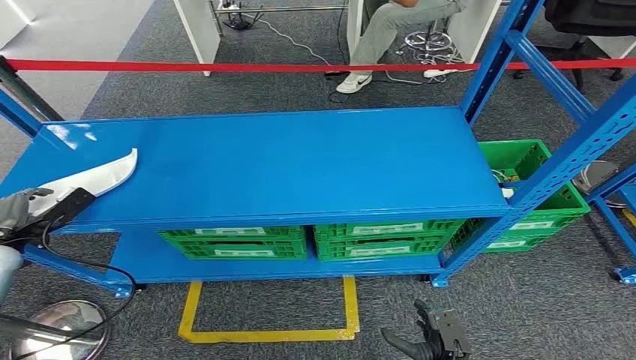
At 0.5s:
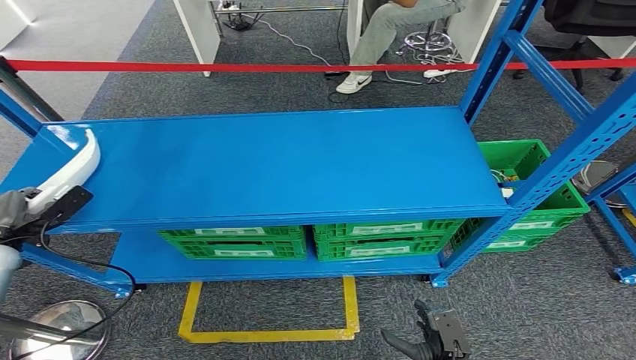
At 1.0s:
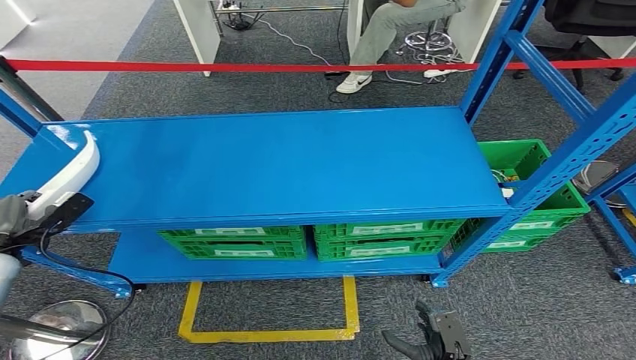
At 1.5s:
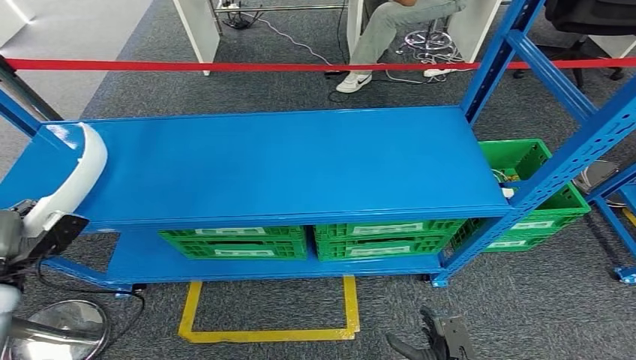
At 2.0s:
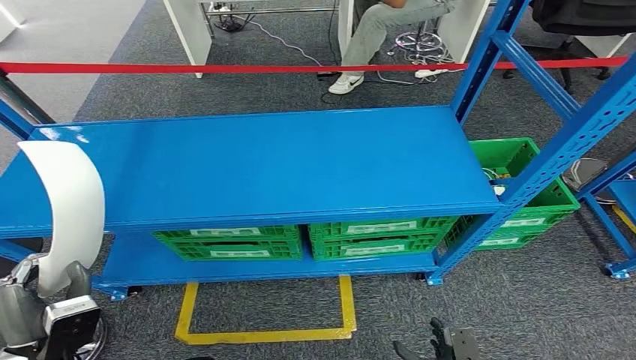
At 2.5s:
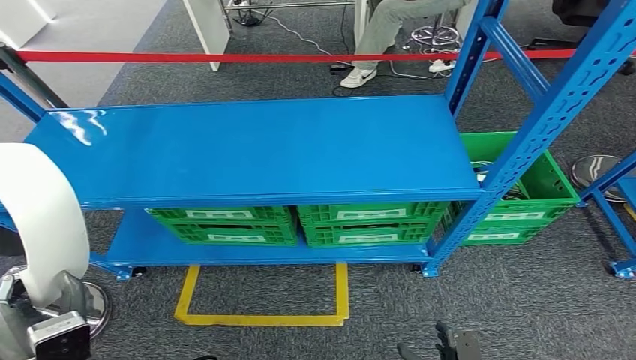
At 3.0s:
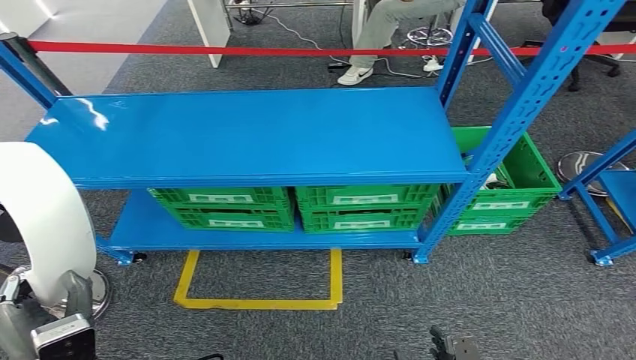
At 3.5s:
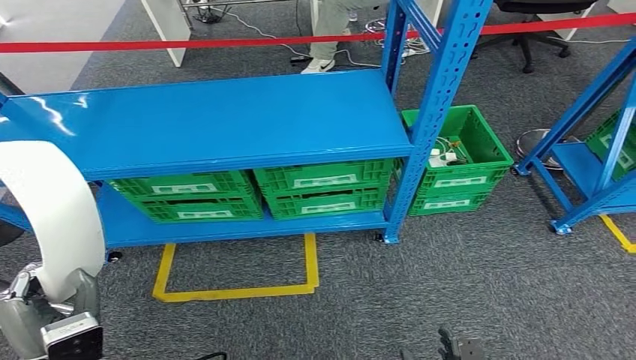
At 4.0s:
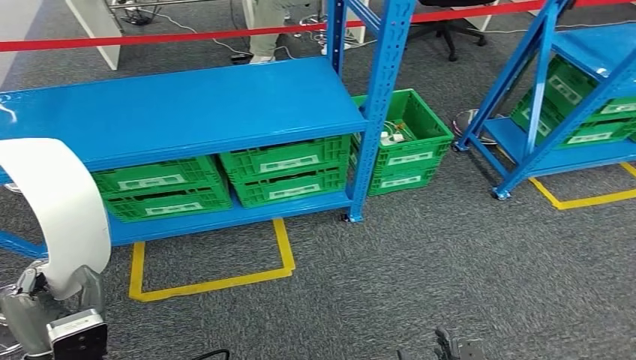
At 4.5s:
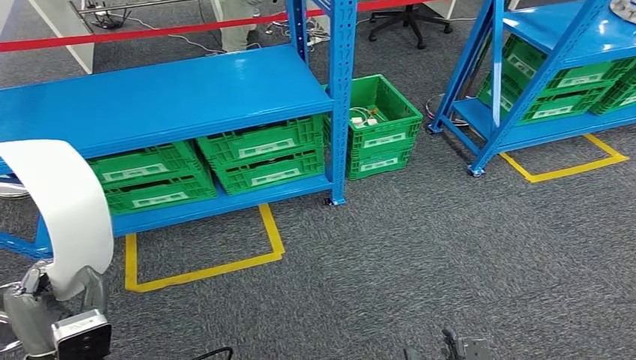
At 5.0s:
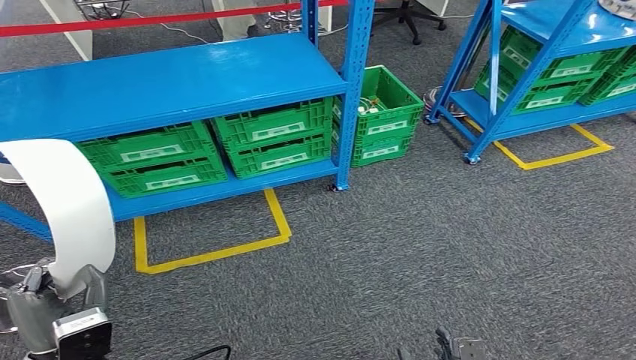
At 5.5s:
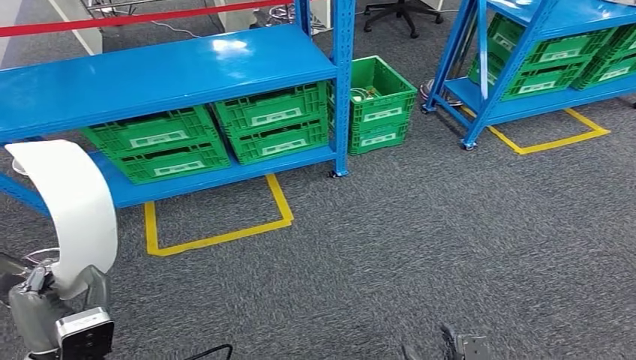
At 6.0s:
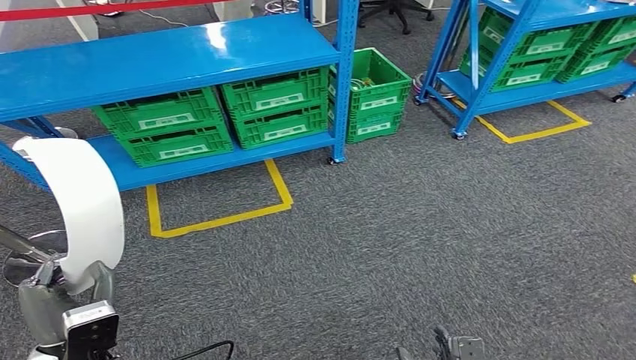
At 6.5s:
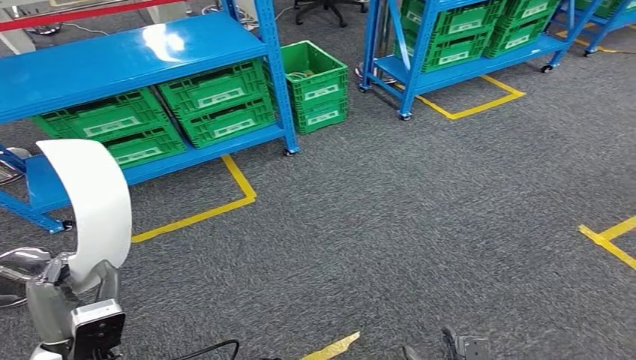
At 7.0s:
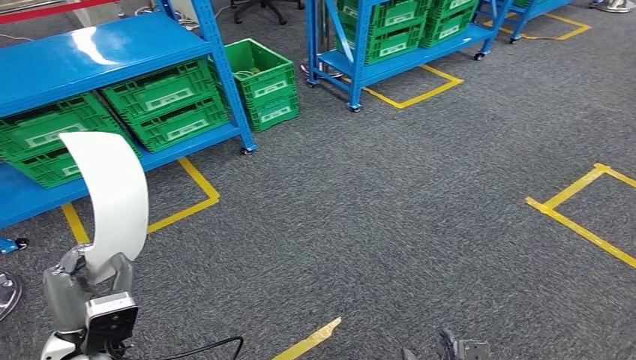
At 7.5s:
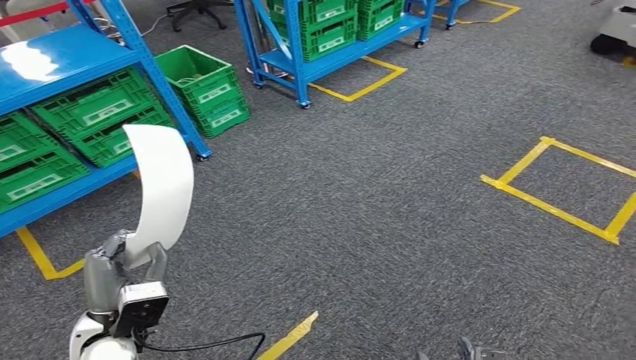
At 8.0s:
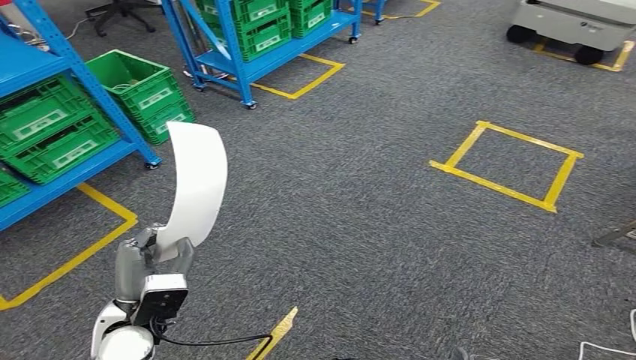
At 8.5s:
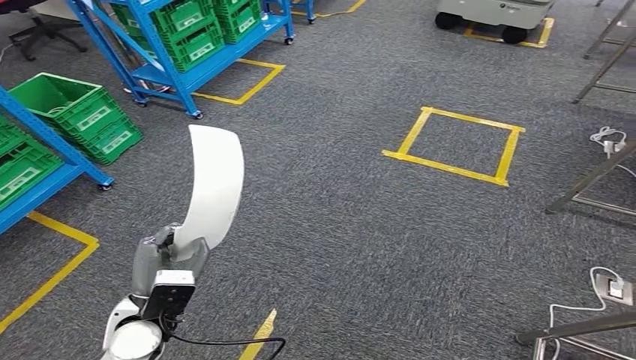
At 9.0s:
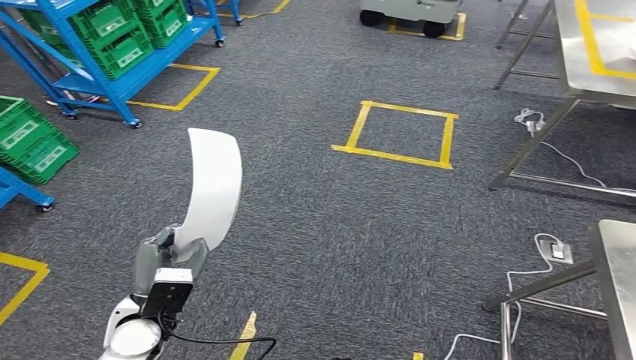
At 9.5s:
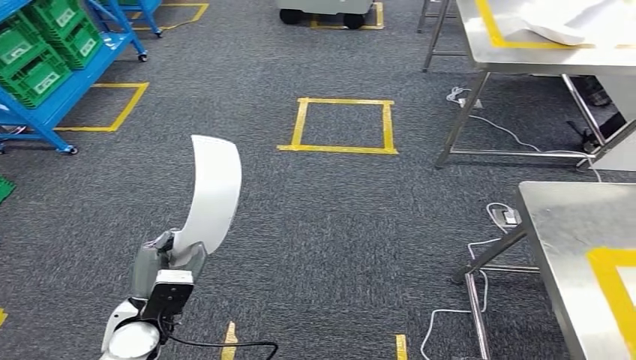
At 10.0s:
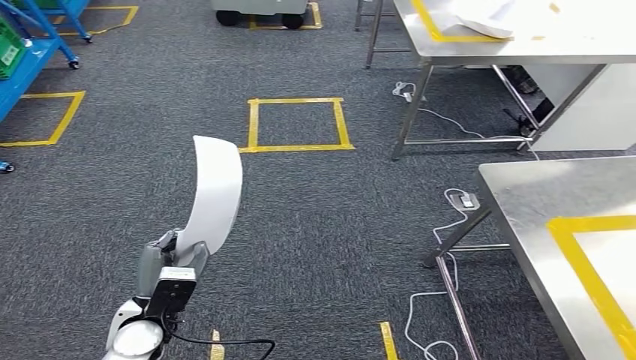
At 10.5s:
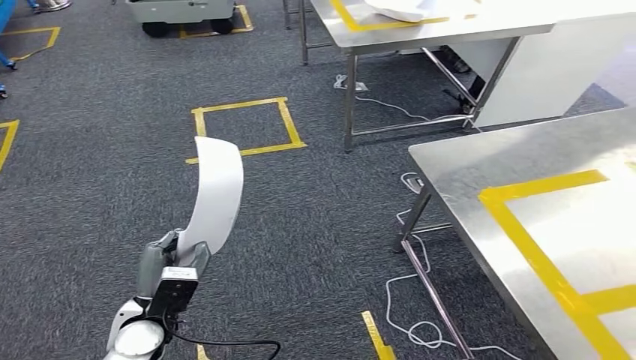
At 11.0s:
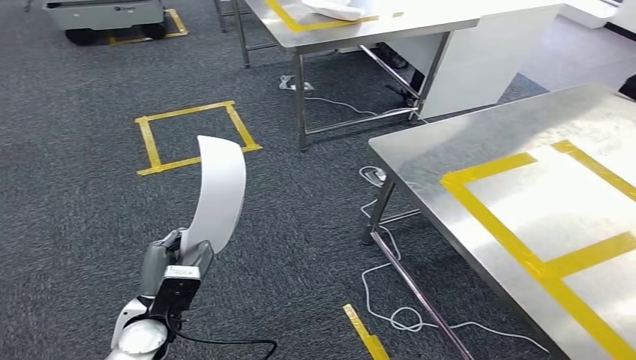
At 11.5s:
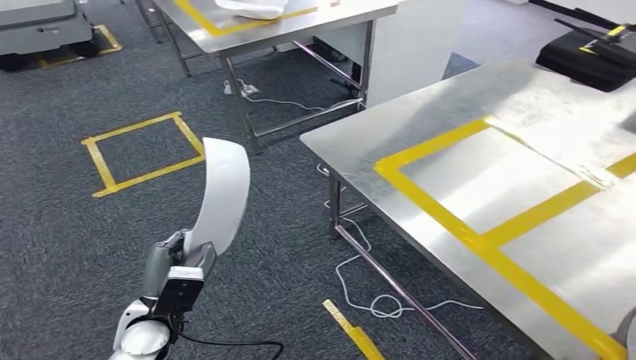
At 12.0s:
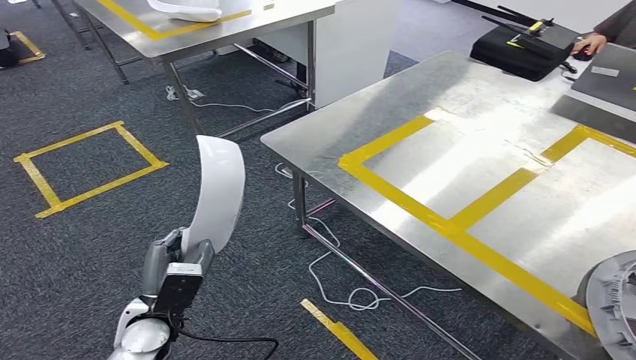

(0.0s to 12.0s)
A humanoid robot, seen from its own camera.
Step, 0.0s - 3.0s: Pick up the small parts from the shelf.

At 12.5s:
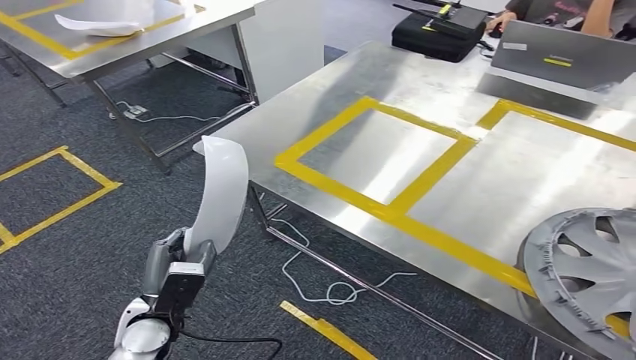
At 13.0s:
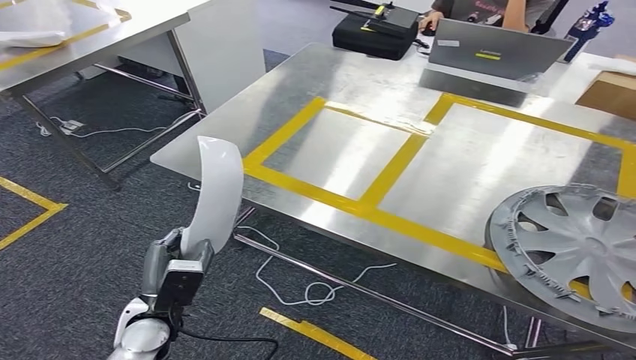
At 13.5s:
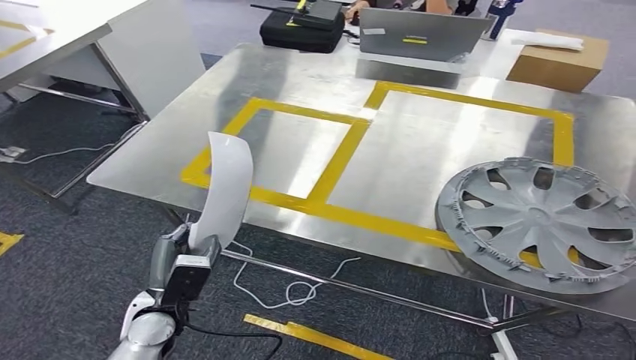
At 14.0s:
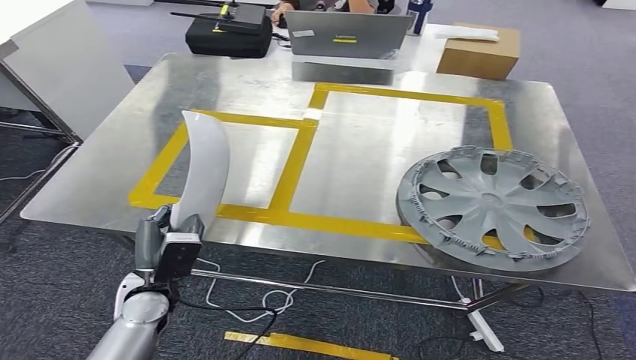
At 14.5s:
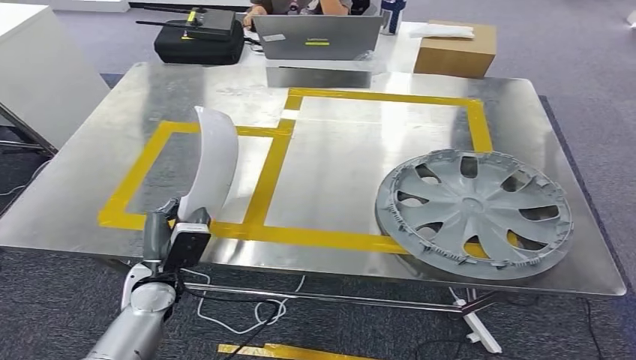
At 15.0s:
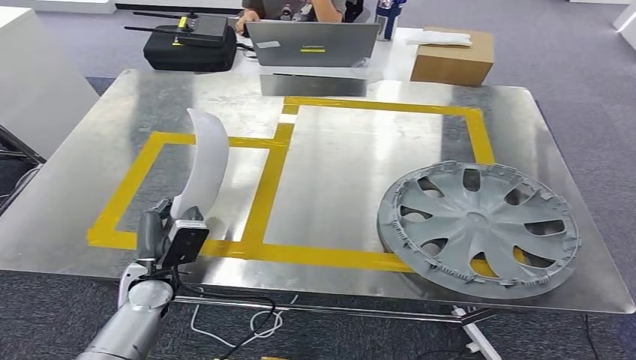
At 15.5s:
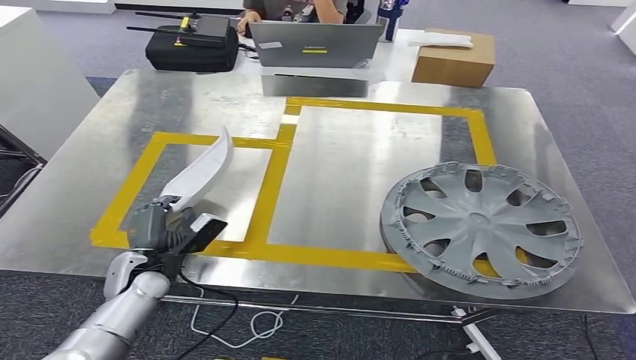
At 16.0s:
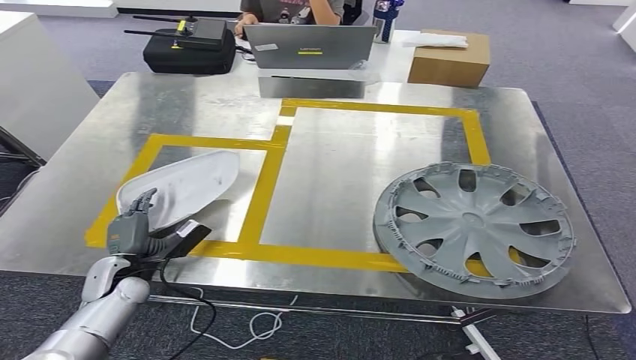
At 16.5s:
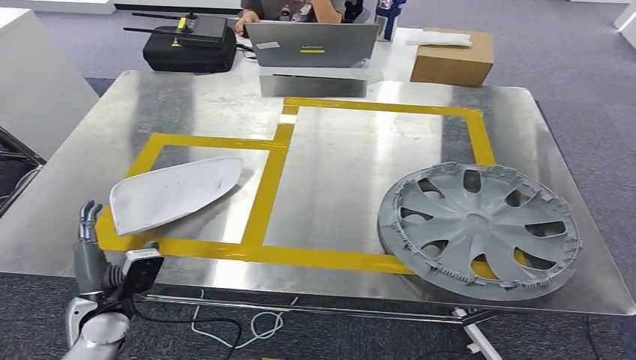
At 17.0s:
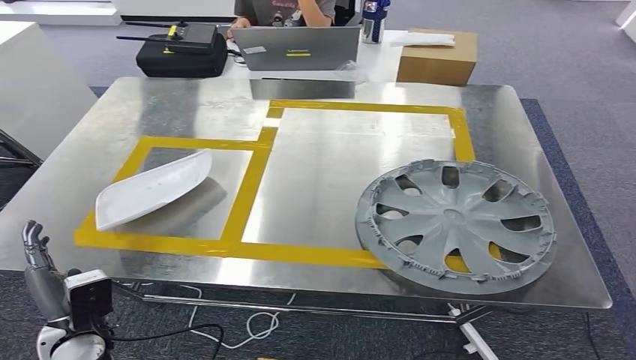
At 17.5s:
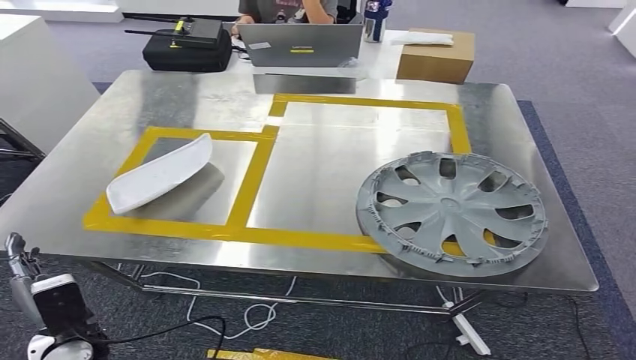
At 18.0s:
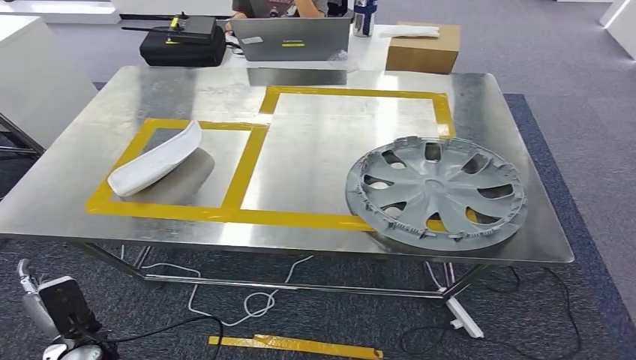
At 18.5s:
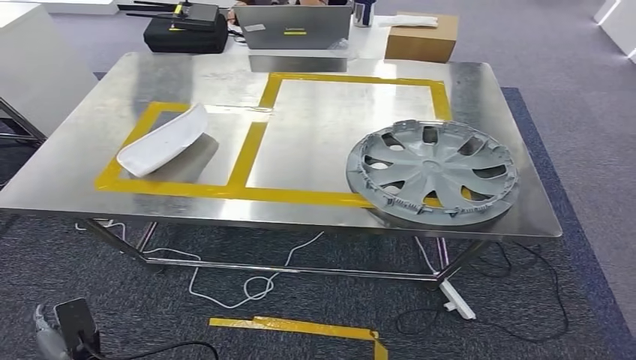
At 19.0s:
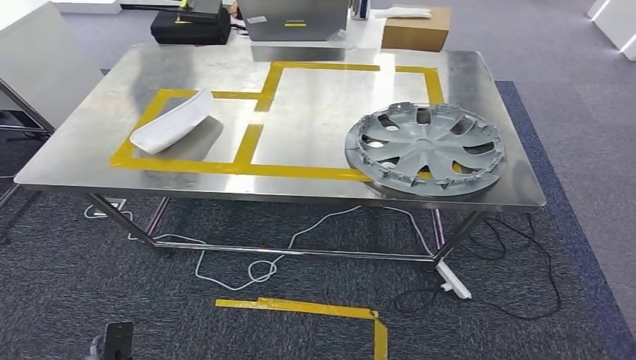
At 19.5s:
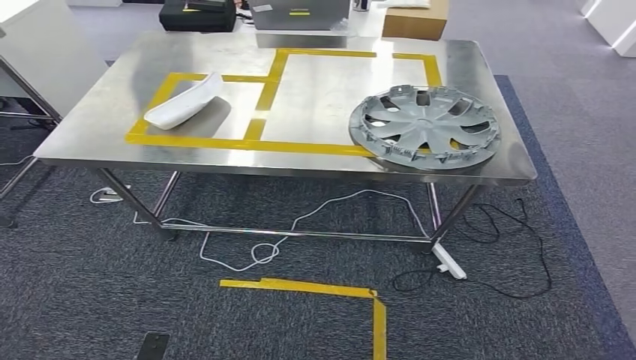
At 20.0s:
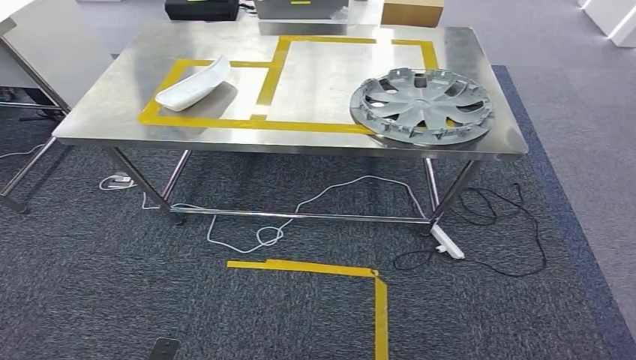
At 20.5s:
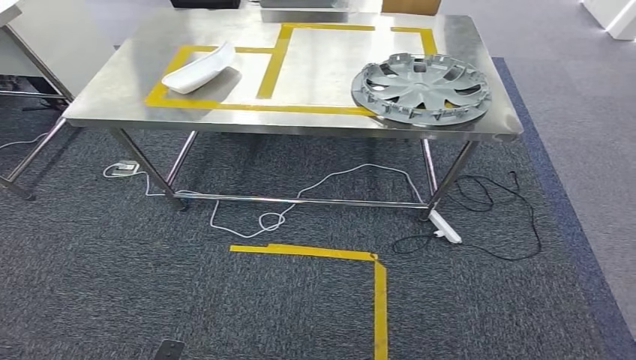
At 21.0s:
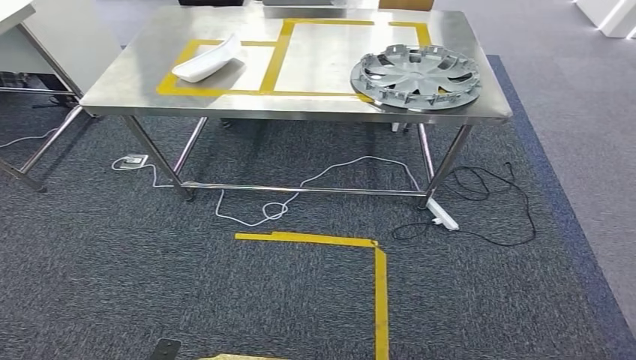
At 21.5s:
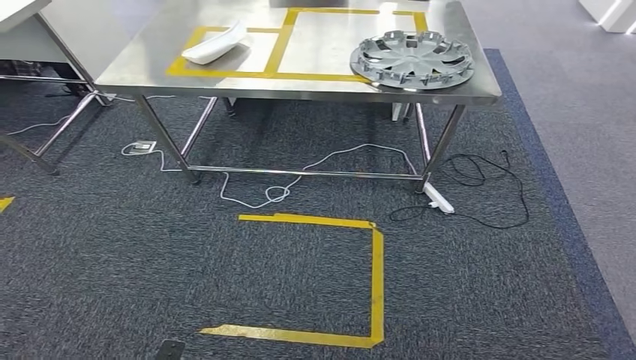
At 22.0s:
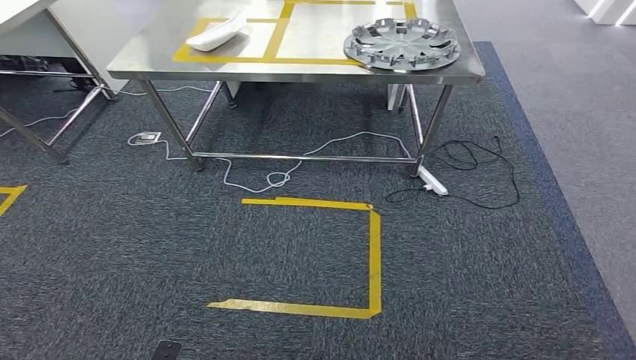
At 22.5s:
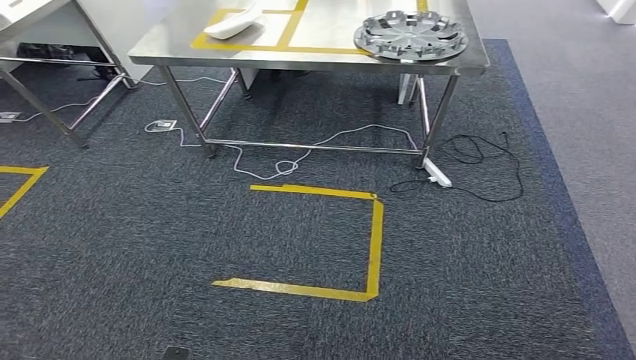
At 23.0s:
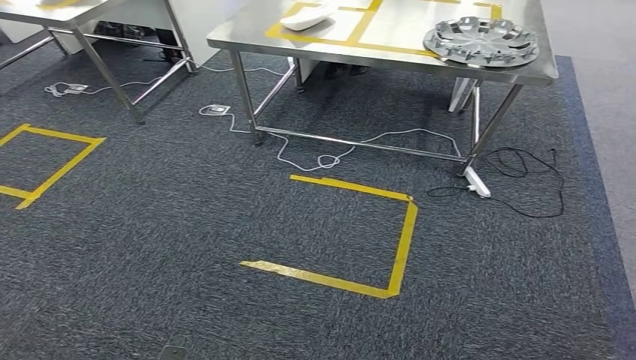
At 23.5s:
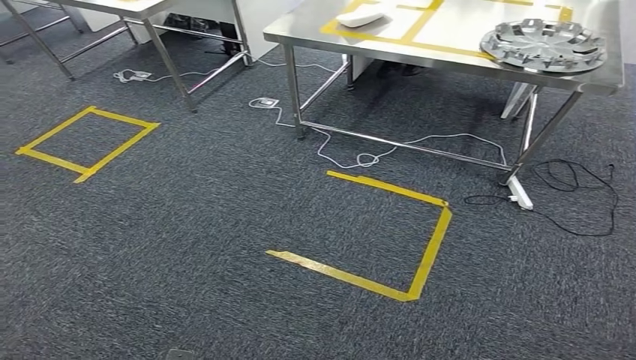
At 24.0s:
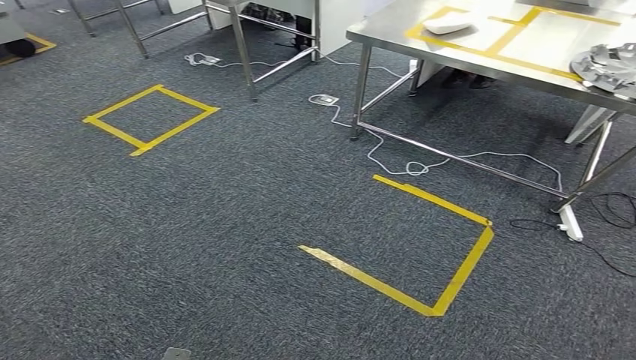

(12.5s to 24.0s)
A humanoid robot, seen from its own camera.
Step, 12.5s - 14.5s: Move the small parts to the workbench.
Step, 15.0s - 18.0s: Insert the small parts into the corresponding holes on the workbench.
